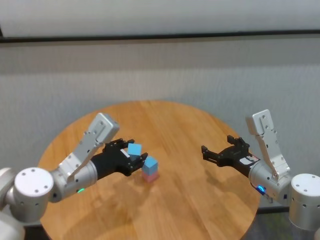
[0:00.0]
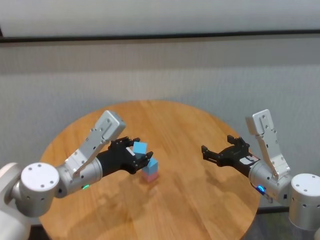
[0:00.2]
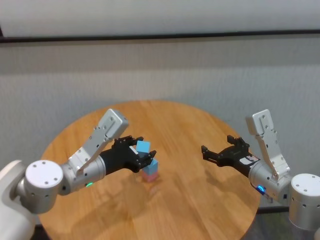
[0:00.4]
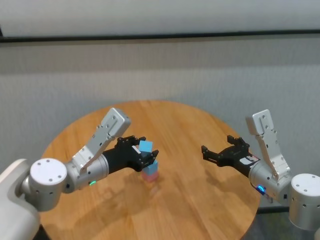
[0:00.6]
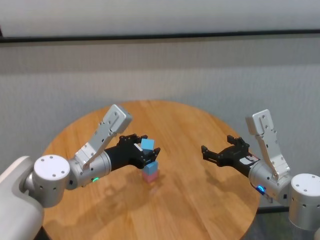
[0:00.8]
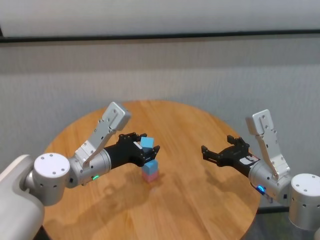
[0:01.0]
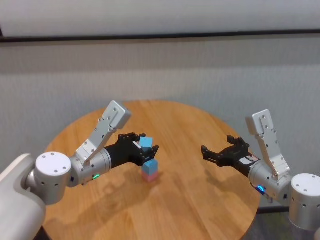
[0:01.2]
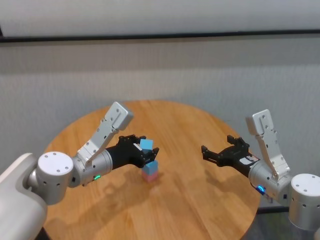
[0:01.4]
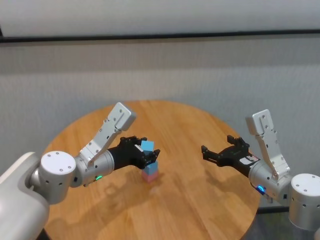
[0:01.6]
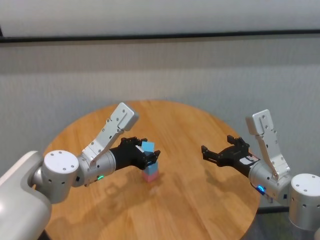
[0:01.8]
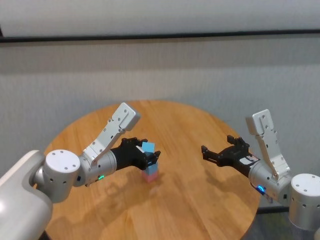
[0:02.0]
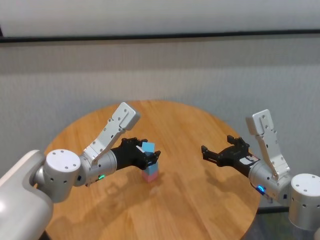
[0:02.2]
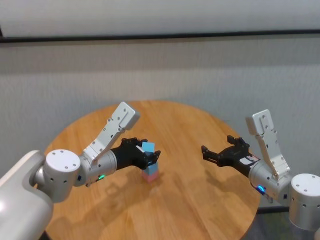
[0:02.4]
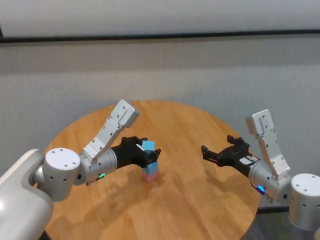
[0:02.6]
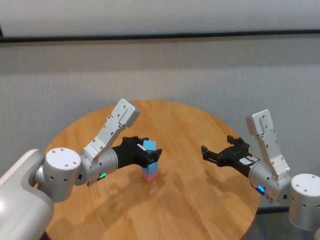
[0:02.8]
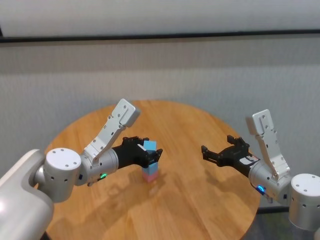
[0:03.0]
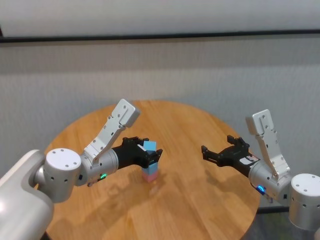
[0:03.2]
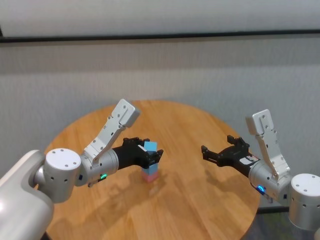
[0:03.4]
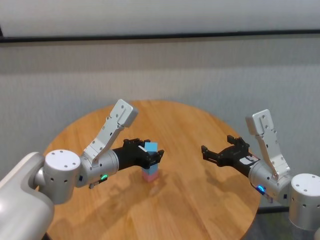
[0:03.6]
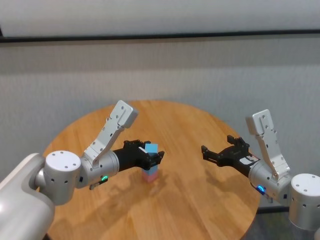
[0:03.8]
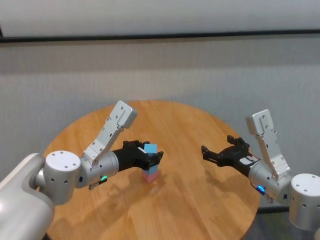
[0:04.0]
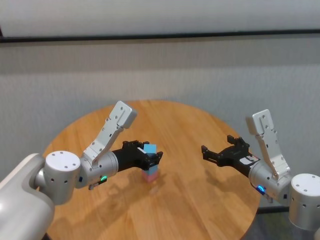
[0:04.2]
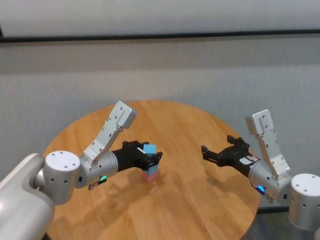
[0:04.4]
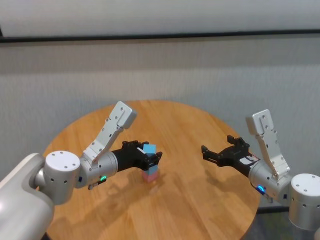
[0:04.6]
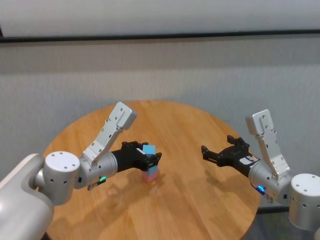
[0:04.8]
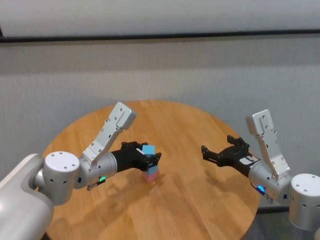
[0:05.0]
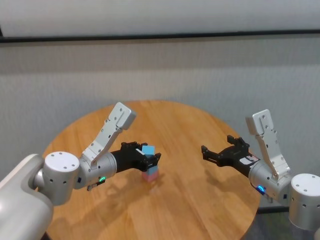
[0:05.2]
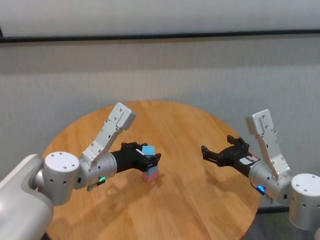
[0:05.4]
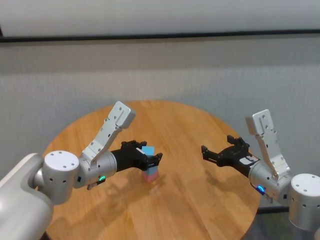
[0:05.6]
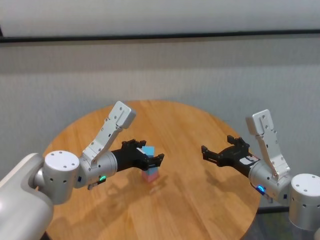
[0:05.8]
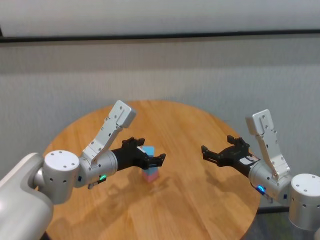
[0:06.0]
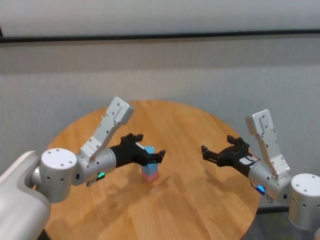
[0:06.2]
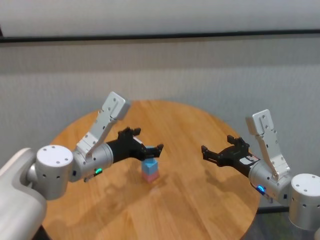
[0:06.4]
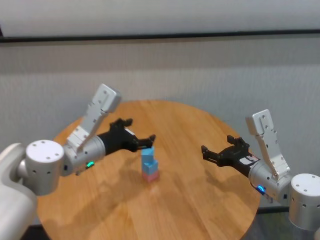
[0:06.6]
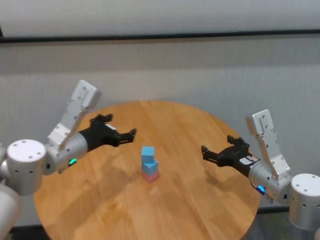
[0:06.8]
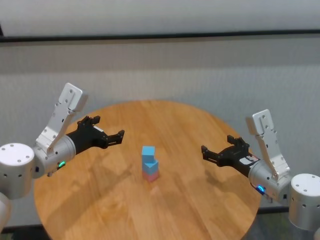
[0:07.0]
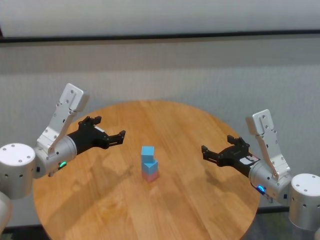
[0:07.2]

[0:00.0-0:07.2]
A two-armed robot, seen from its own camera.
Task of the whole recording: stack building blocks on the table.
Step, 0:00.0 to 0:05.8: Place the blue building block on the blue building blocks with left gripper.

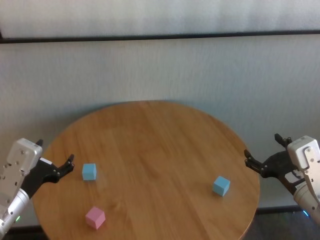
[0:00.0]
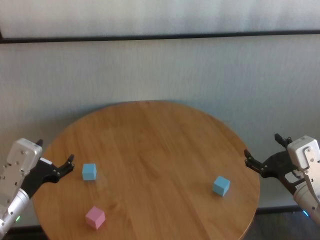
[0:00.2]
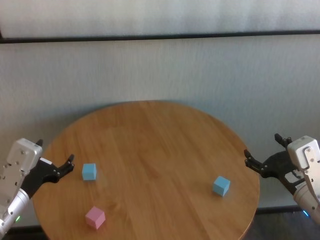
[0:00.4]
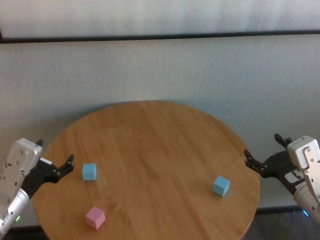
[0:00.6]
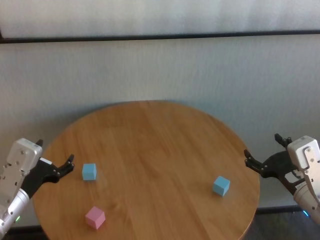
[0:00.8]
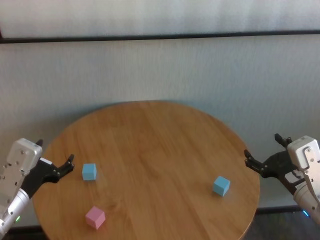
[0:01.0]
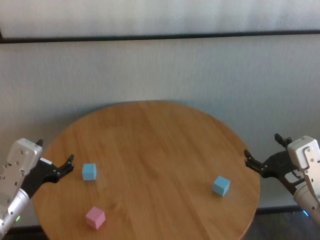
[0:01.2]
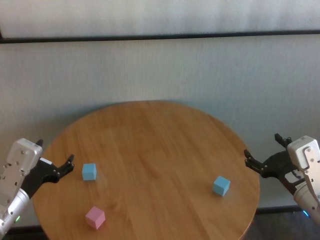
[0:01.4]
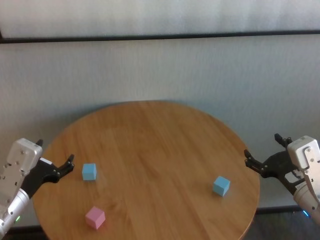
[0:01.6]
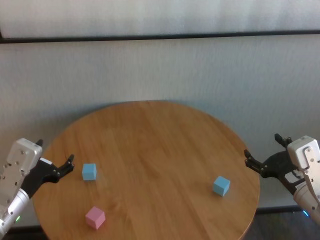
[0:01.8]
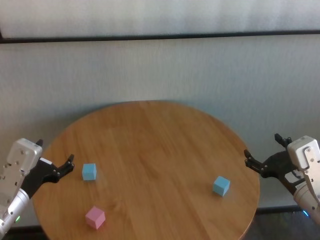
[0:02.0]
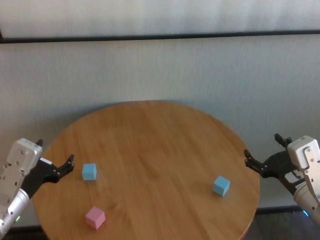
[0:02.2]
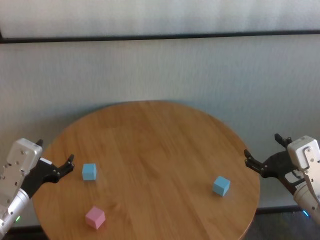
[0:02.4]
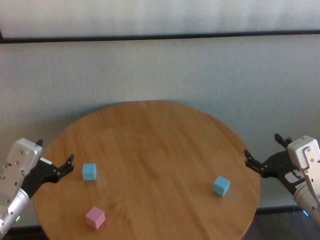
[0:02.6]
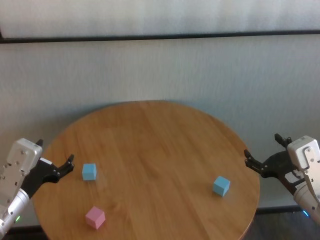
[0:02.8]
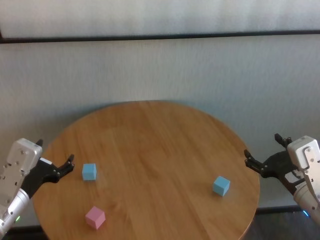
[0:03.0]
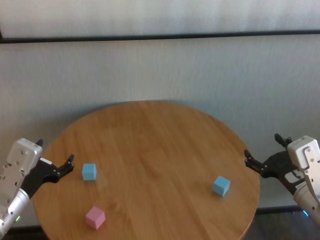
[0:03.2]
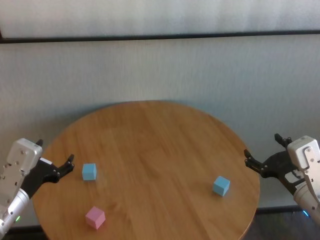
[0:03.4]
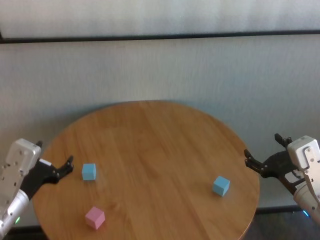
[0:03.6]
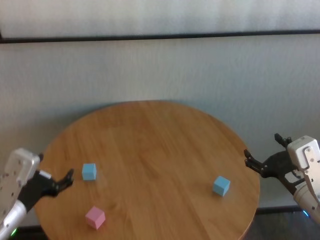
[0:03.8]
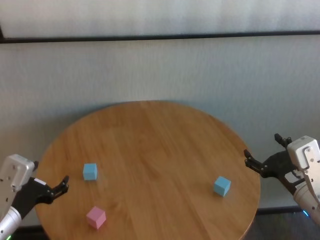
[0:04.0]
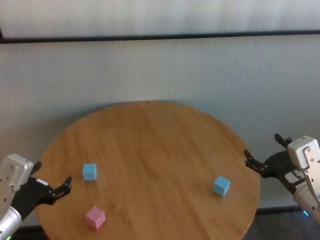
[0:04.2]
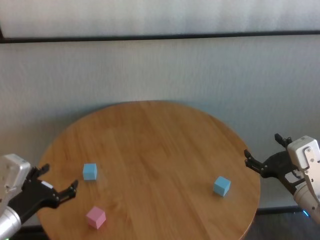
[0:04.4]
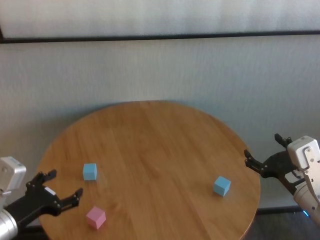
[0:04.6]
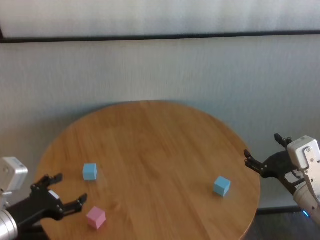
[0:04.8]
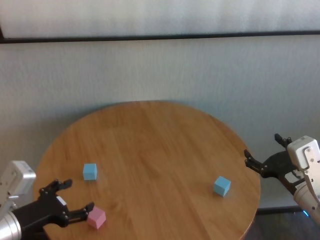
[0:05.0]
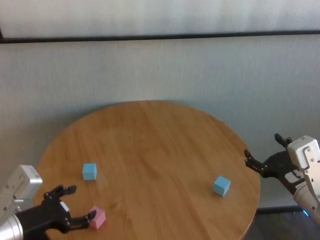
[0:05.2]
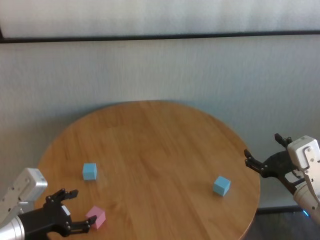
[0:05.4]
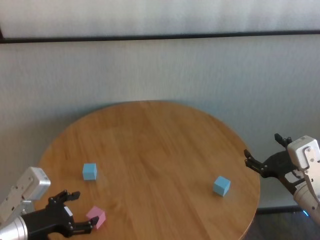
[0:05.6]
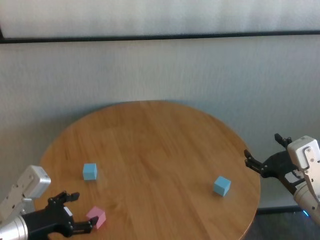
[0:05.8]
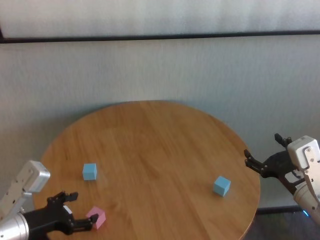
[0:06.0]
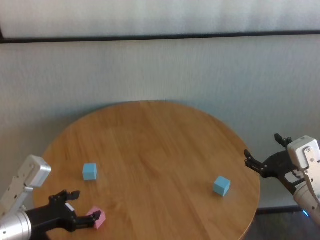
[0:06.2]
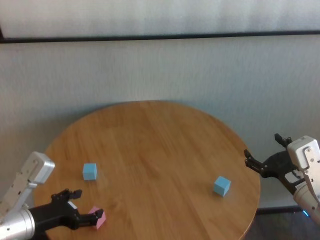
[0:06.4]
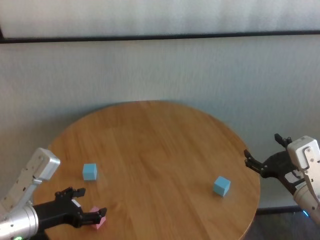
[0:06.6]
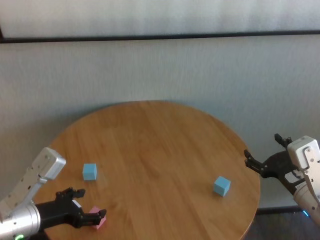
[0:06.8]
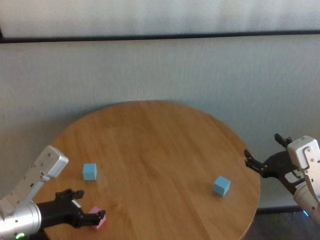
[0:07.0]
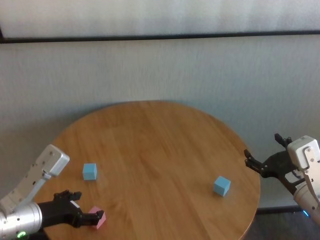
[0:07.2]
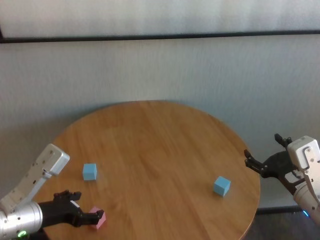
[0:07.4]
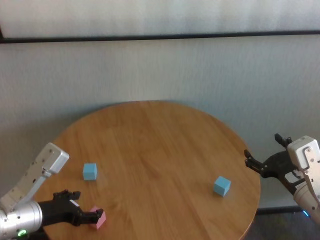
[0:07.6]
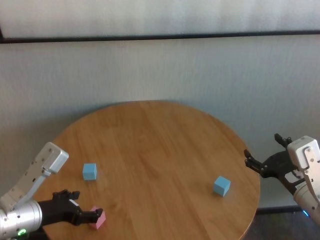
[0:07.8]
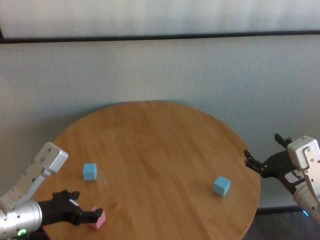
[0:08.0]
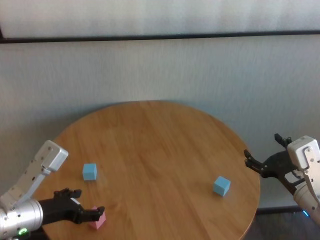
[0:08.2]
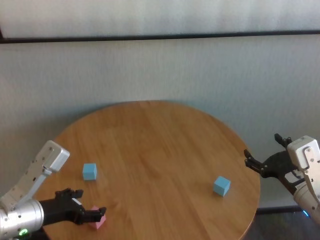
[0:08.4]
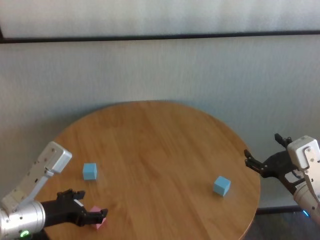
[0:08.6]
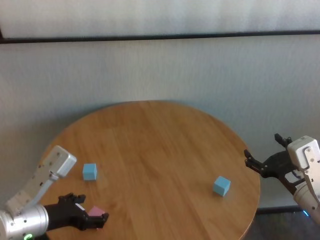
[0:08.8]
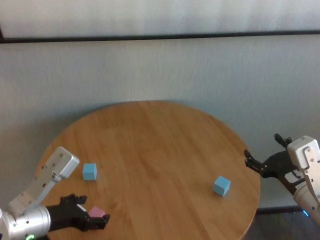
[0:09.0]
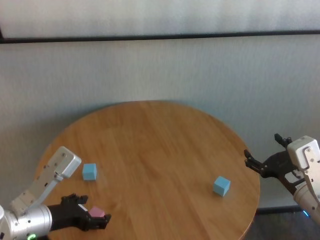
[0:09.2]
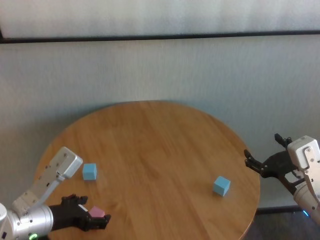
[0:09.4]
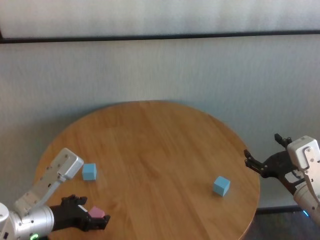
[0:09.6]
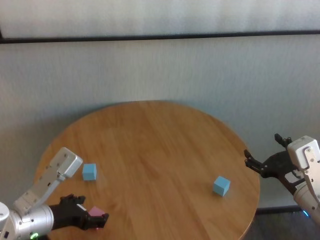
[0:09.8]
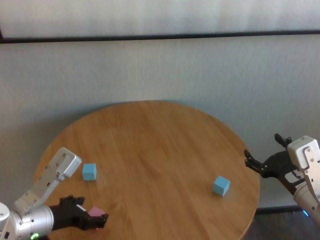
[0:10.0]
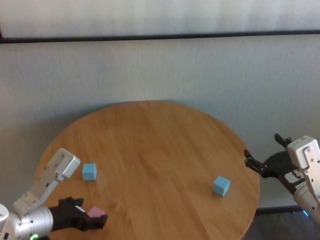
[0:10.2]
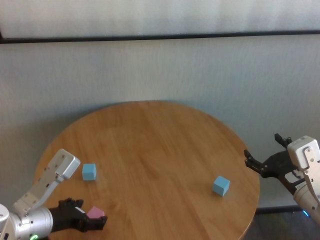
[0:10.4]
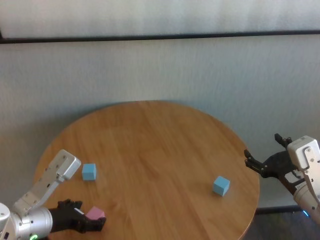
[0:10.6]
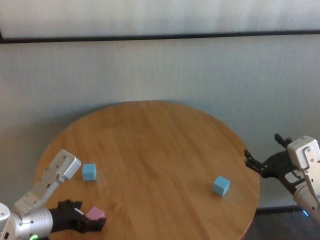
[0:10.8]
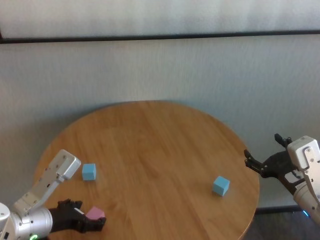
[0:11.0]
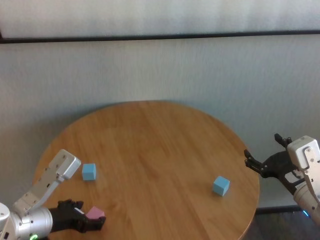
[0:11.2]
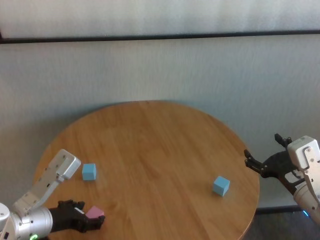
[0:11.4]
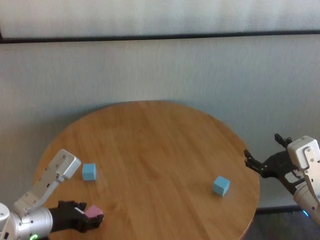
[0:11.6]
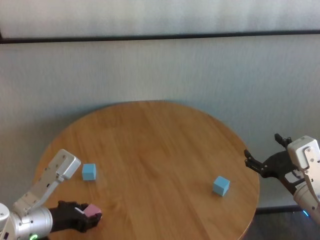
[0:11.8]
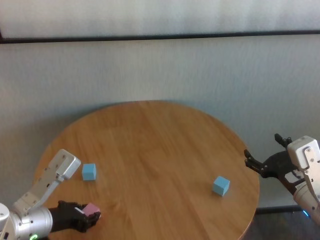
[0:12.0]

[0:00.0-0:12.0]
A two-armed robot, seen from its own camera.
Task of the whole recording: stack building blocks on the table.
Step, 0:00.0 to 0:12.0: Grasp the pink building block with left gripper.

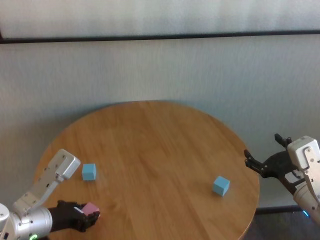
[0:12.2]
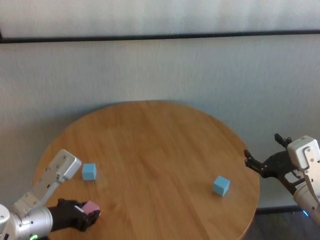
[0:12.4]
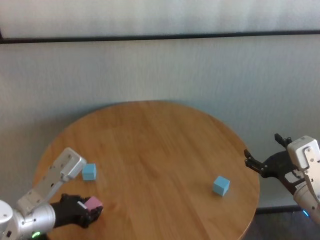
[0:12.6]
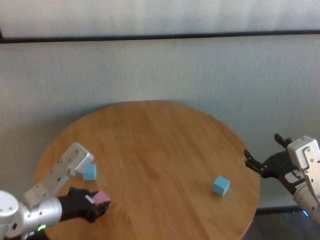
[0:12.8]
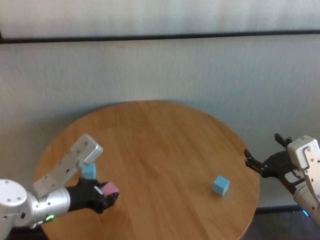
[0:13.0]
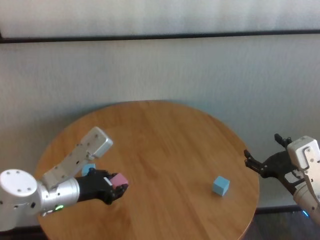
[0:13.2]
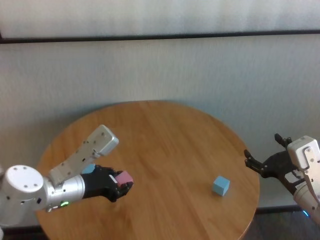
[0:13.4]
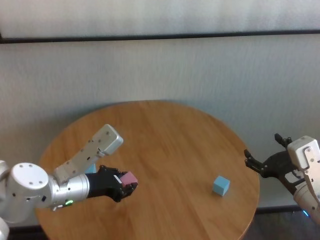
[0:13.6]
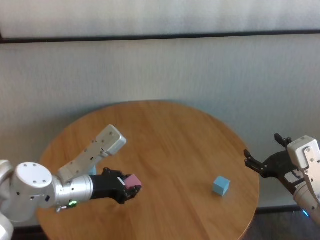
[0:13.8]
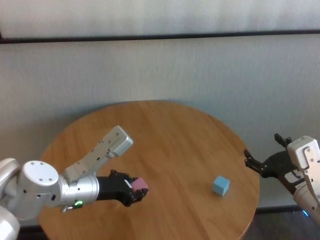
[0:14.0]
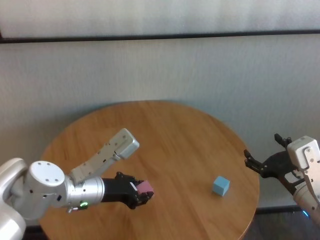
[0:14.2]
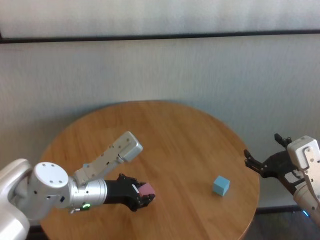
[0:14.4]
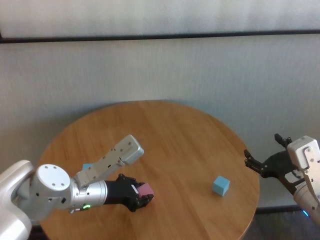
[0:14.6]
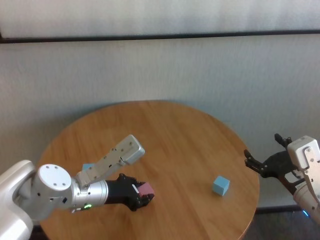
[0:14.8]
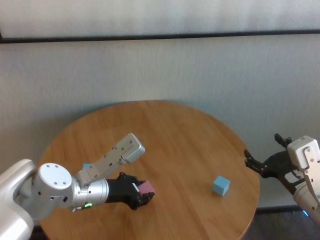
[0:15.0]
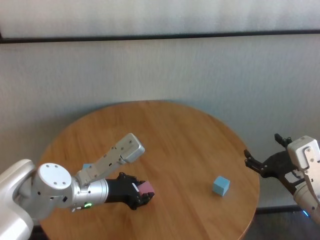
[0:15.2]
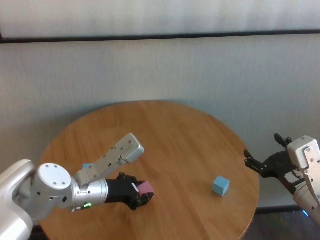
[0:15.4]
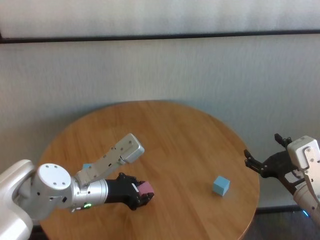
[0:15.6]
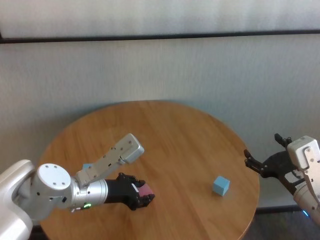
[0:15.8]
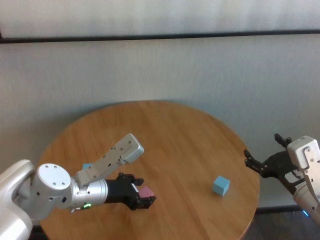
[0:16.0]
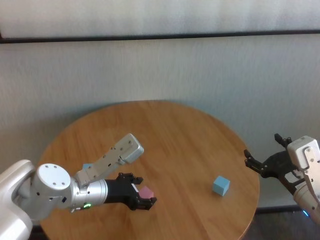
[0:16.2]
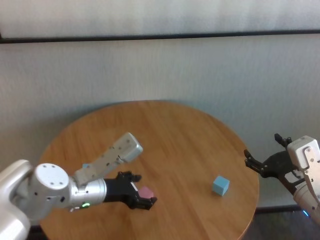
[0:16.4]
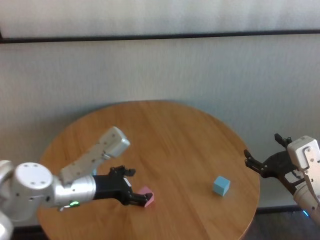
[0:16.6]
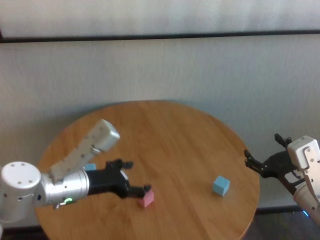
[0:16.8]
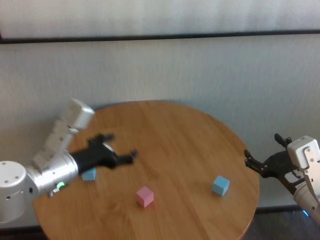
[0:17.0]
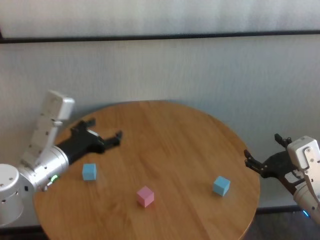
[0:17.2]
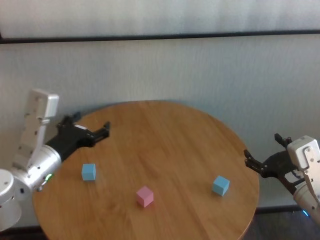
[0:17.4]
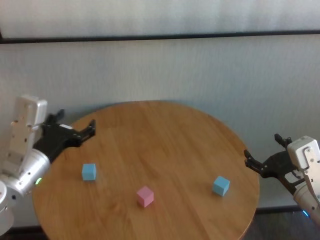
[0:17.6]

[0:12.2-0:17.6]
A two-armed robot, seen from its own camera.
Task of the whole recording: stack building blocks on the table.
Step, 0:12.2 to 0:16.2: Place the pink building block in the center of table with left gripper.
